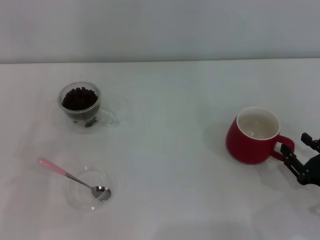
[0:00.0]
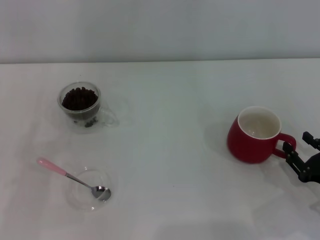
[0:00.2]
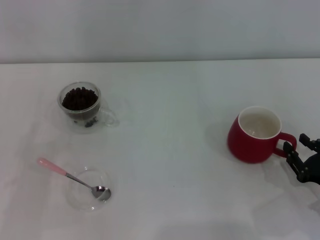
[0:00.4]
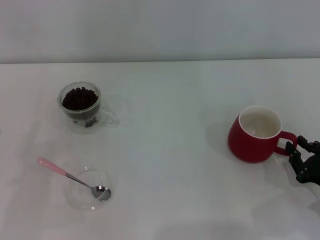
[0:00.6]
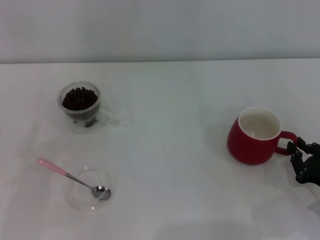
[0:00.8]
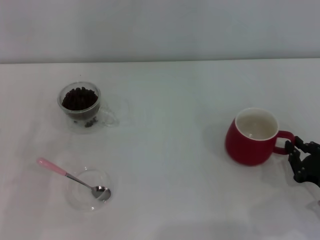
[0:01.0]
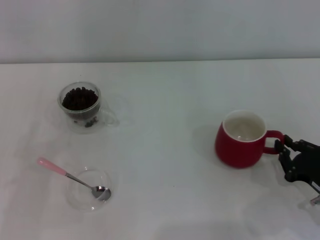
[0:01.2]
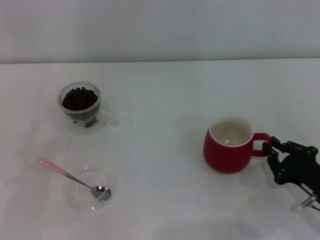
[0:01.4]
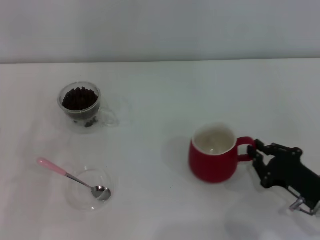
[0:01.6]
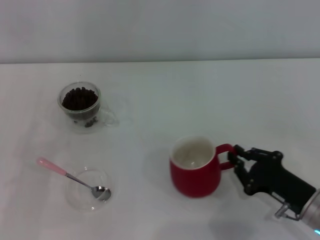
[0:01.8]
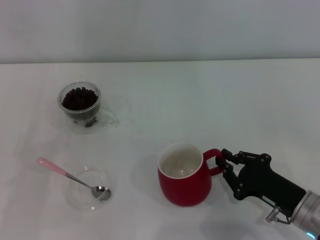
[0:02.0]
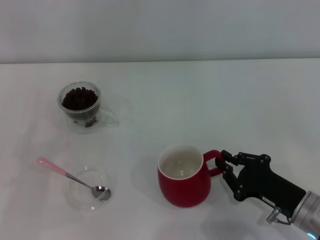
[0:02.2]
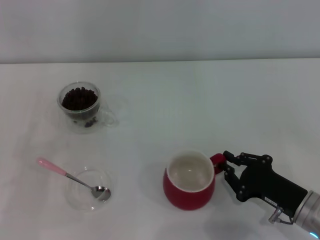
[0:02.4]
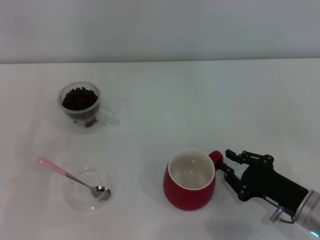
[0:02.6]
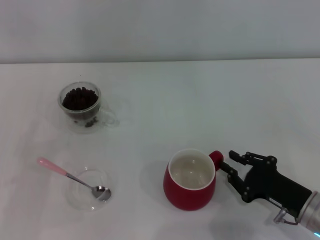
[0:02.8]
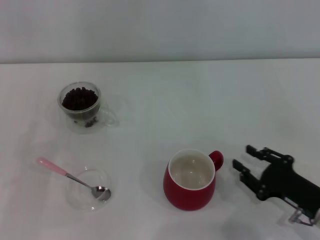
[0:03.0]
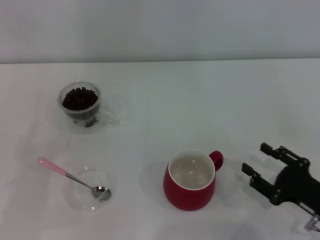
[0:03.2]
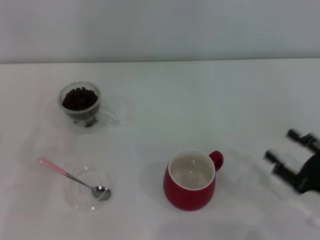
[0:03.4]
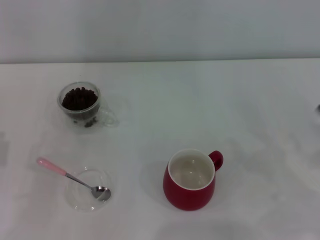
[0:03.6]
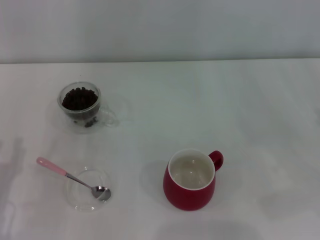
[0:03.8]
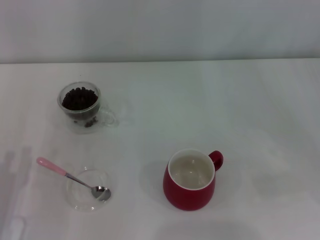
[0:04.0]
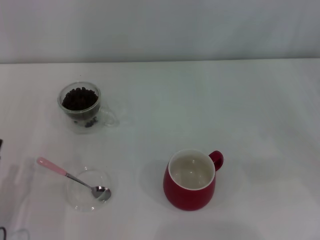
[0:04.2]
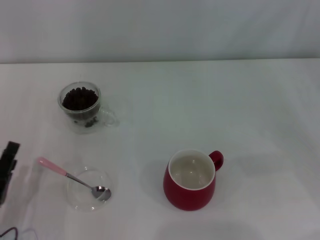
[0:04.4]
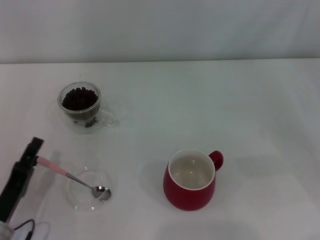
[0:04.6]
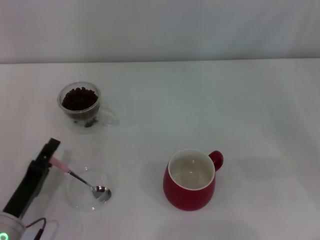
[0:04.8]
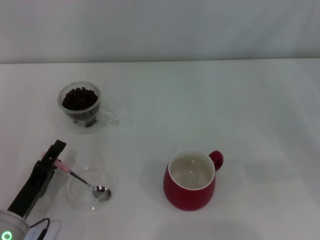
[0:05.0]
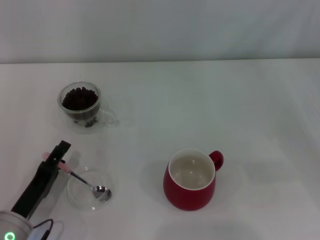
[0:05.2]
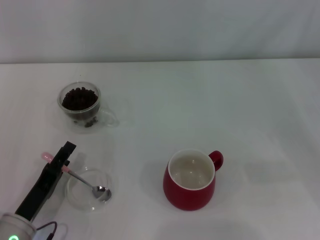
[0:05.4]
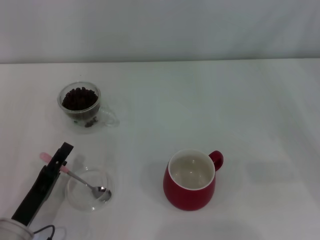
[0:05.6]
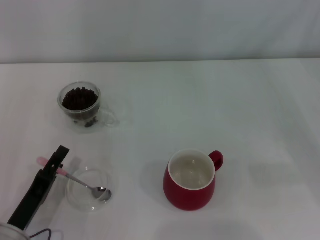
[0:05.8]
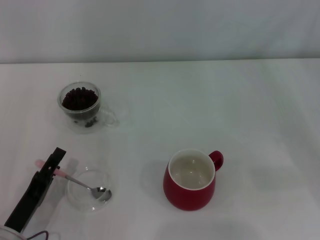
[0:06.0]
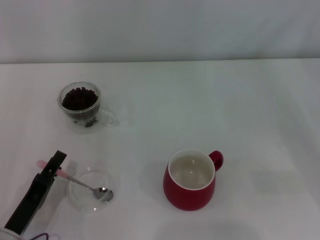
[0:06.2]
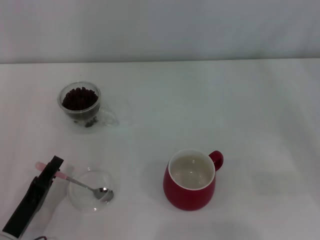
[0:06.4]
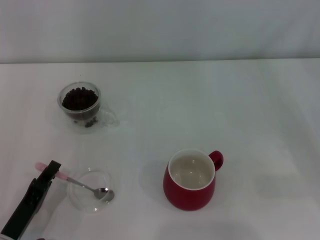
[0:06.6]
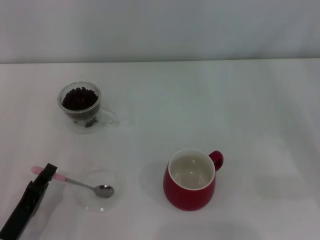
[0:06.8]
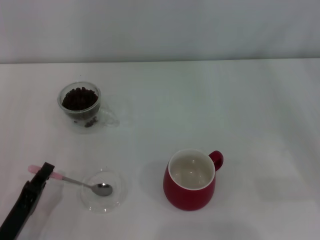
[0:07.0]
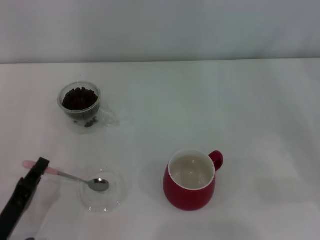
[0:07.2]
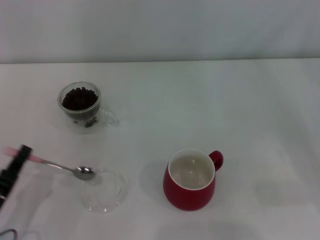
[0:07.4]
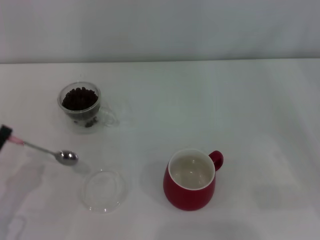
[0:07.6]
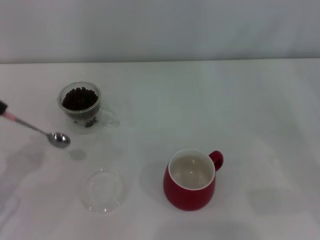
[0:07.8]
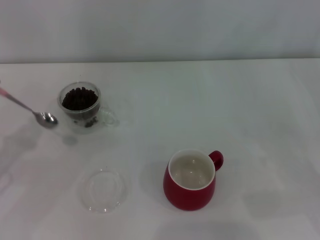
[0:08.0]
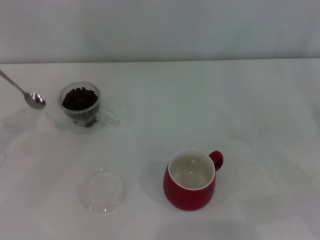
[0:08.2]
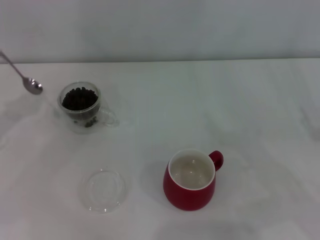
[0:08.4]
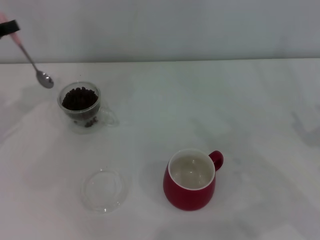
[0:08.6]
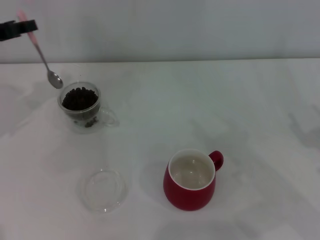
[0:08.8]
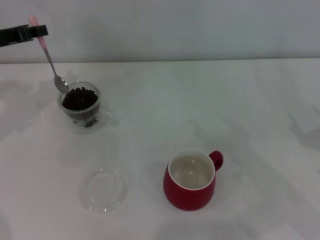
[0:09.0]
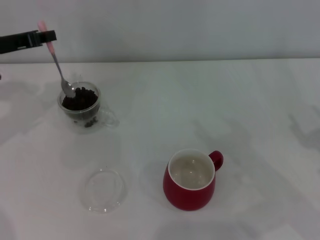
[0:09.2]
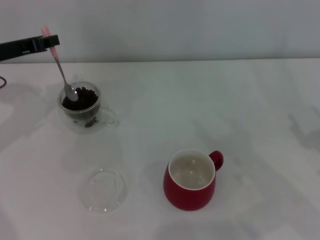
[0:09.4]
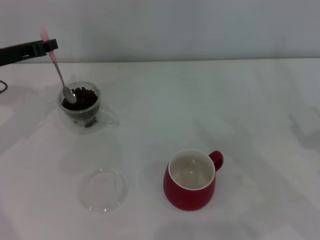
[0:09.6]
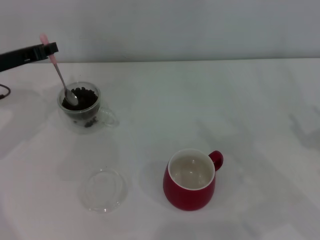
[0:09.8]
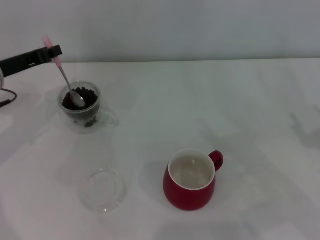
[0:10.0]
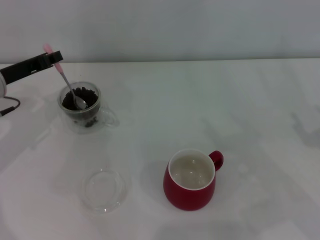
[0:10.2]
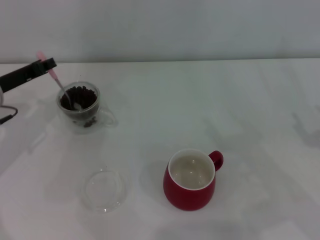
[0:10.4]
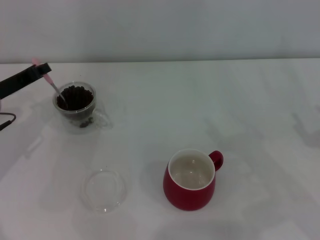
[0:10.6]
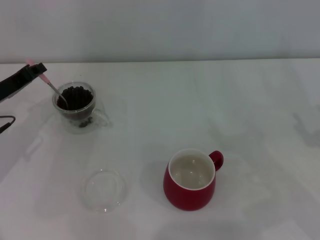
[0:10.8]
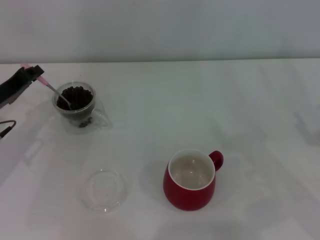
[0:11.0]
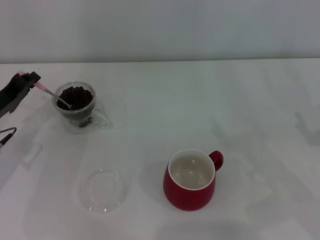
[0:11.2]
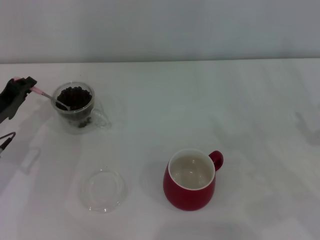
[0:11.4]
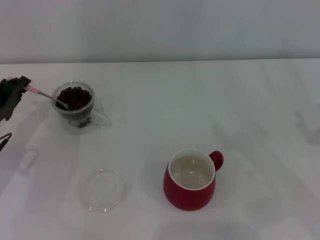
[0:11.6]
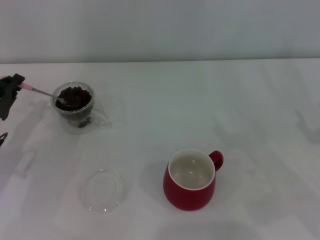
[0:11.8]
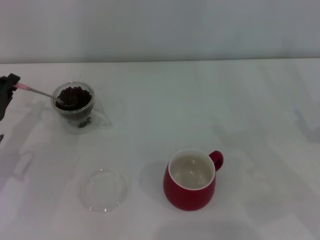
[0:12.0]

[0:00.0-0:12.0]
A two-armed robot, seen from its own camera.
Task of the whole recording: Use a pink spoon to take out the coffee beans from the glass and pour them into the red cup.
Step, 0:03.0 to 0:07.2: Pick up the spoon with the right gripper.
0:00.0 to 0:01.6: The right gripper closes its fingers.
0:01.6 to 0:03.0: The grippers move only a little.
0:03.0 to 0:04.4: The left gripper goes approximately 10 cm to the right, backward and downward. The right gripper is displaced to the right, upward and forward by approximately 20 cm, and opens.
0:04.4 to 0:06.0: There are only small adjustments of the grippers.
0:06.0 to 0:07.6: The left gripper travels to the left by roughly 5 cm, and closes up.
0:07.6 to 0:09.0: The left gripper moves forward and upward, approximately 30 cm.
0:09.0 to 0:10.4: The left gripper shifts roughly 5 cm downward.
0:10.4 to 0:12.0: The left gripper moves backward and downward, some 10 cm.

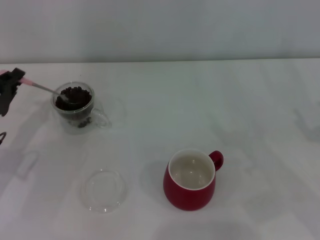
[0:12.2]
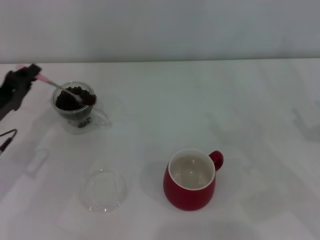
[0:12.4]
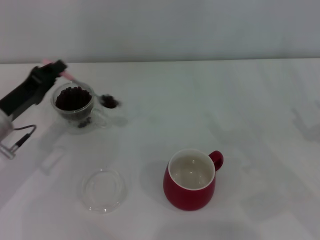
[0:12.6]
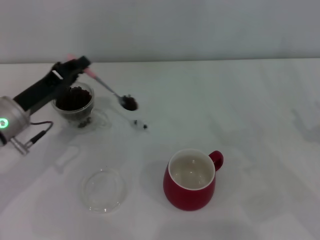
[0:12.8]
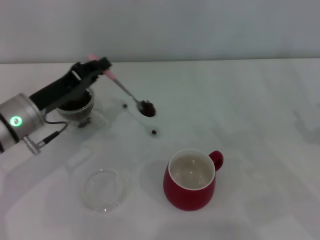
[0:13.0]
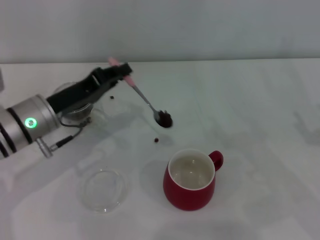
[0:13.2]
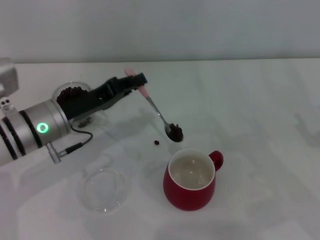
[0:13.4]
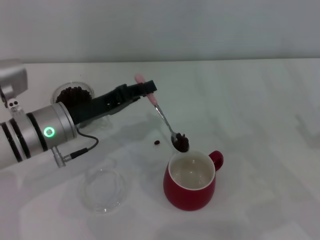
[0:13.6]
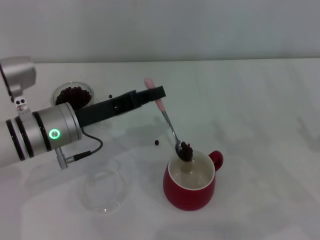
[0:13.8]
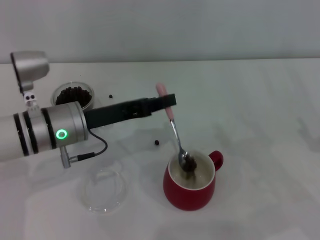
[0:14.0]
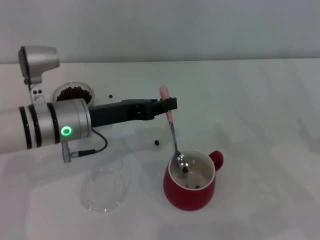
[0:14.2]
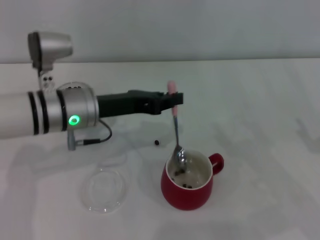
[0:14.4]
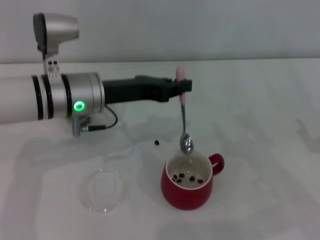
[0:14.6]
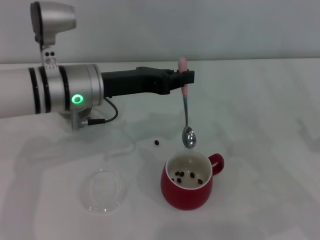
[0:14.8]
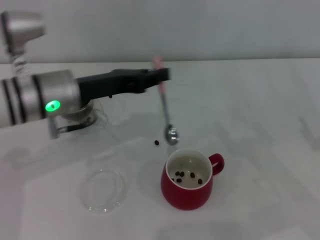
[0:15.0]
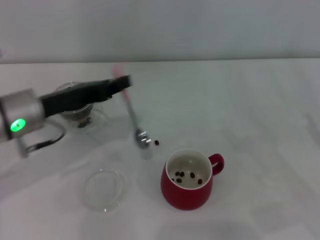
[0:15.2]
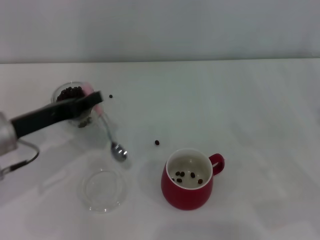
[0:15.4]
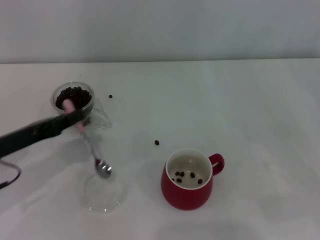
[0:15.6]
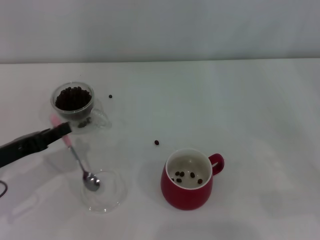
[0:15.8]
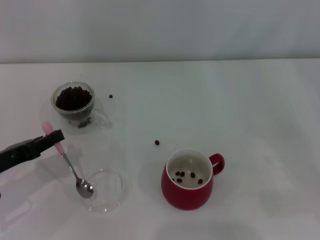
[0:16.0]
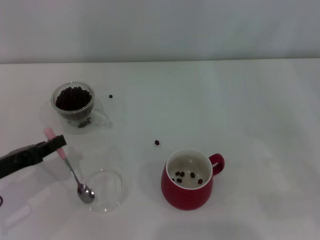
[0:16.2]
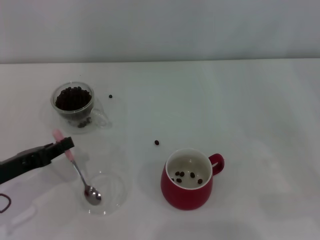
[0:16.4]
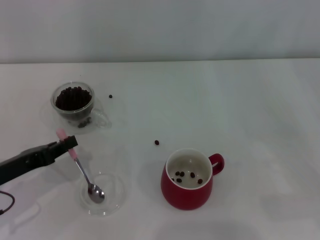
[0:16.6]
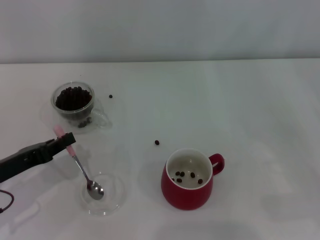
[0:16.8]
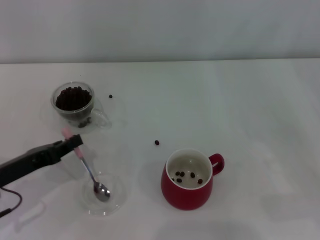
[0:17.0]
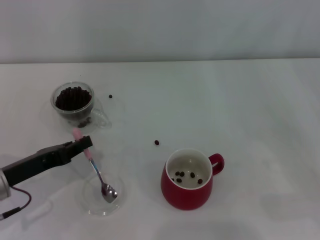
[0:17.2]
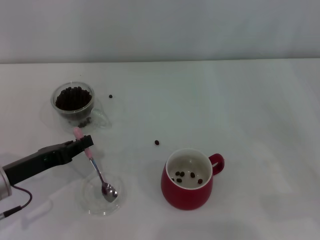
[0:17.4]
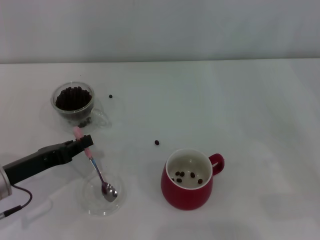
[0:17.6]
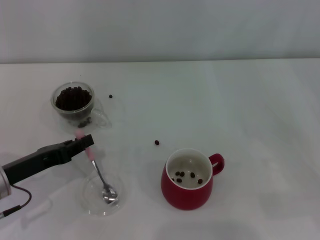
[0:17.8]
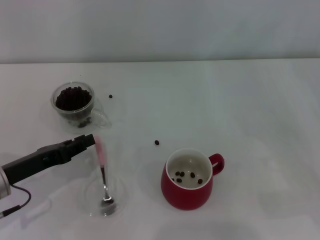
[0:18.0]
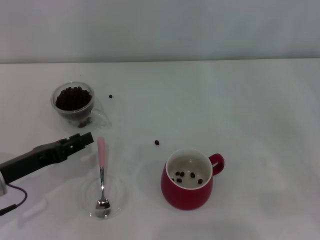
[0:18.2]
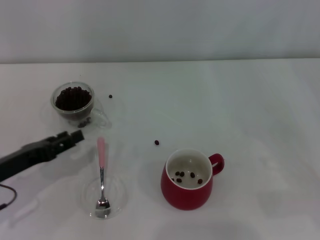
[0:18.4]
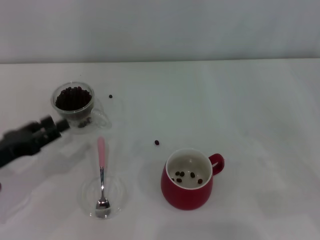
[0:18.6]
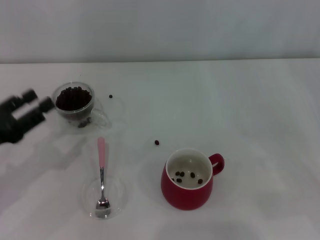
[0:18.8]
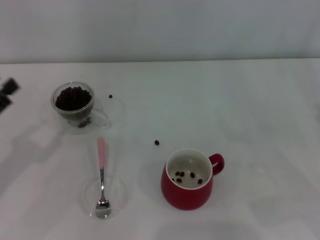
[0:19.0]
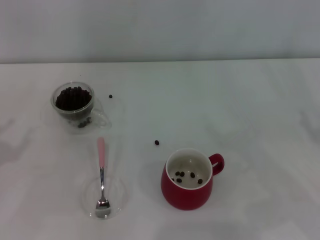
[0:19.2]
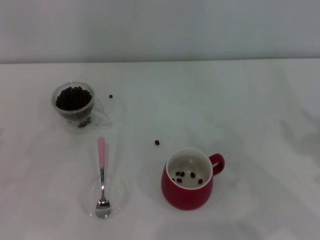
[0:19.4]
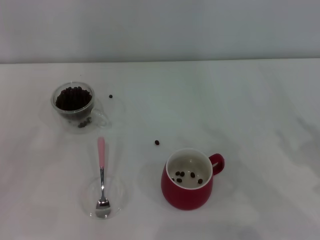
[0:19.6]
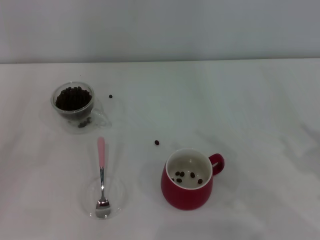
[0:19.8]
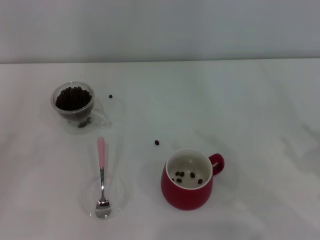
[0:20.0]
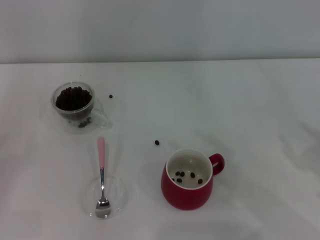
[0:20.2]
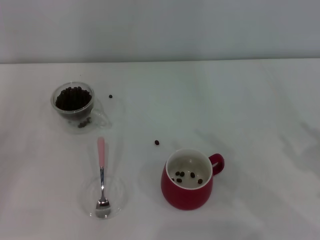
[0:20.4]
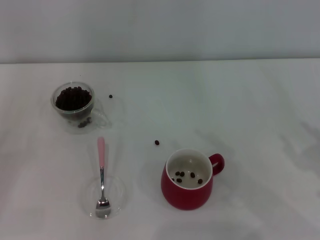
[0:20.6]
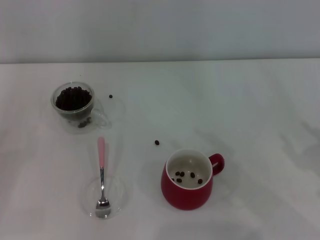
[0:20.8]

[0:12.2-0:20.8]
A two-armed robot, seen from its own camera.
Task of the whole recording: Use a pink spoon to take out the coffee beans from the glass and pour them into the red cup.
Step, 0:15.0 to 0:18.2: Place the spoon back in its original place with the right gripper.
0:12.2 to 0:13.6: The left gripper shifts approximately 10 cm to the right.
0:13.6 to 0:15.0: The left gripper goes some 5 cm upward.
0:15.0 to 0:16.6: The left gripper is displaced to the left, backward and downward by some 20 cm.
0:16.6 to 0:18.0: The grippers make only small movements.
0:18.0 to 0:19.4: The left gripper goes approximately 15 cm to the left and backward, and opens.

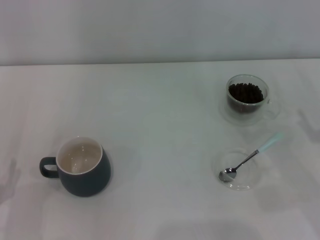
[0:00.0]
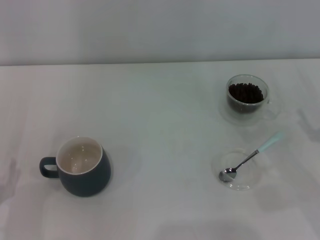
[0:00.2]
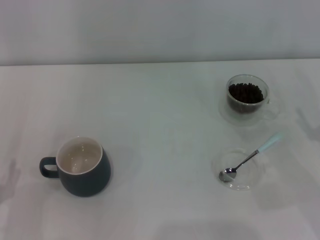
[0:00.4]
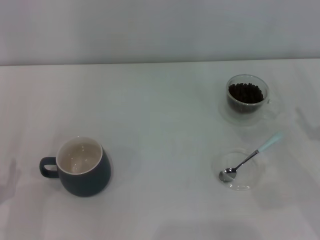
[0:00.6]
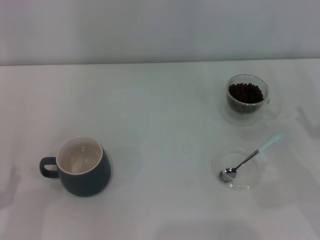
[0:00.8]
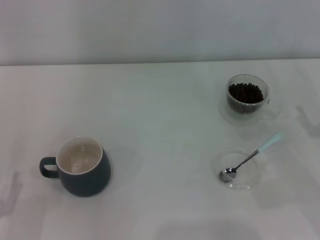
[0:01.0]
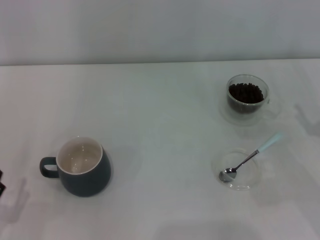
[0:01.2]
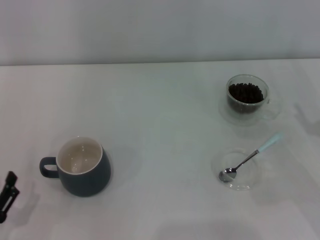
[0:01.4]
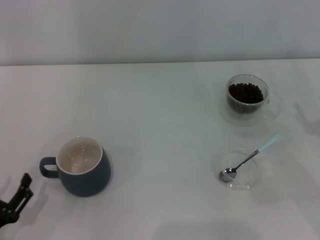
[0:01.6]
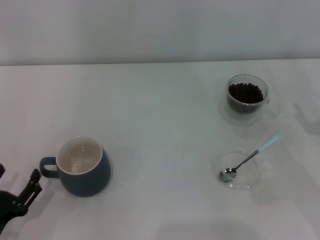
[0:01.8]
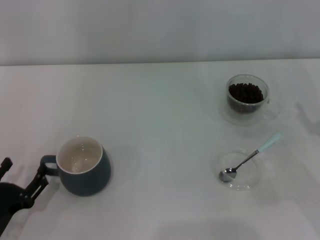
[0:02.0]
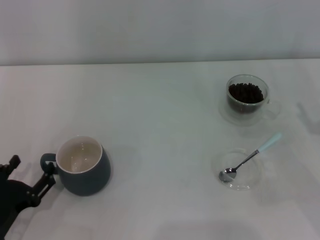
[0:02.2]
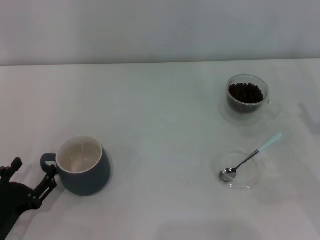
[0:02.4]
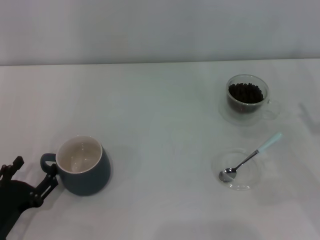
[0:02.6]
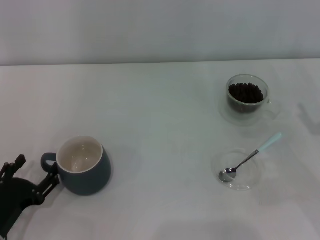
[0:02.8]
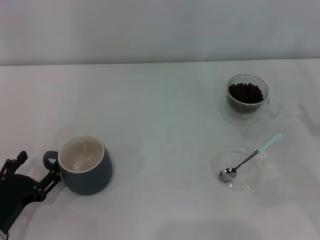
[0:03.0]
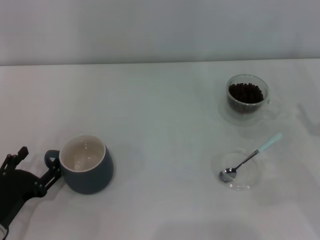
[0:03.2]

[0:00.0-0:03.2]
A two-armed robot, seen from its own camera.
Task of the whole recording: Use a blue spoon to take out the coffee beans from the glass and pour them into the gray cup.
0:00.0 to 0:01.6: The grippers move only a little.
0:01.6 to 0:03.2: The left gripper goes about 5 cm forward.
